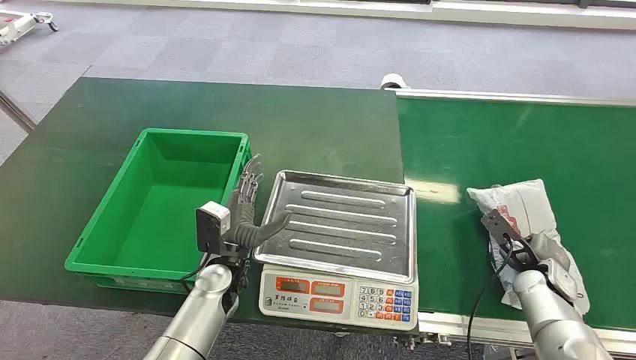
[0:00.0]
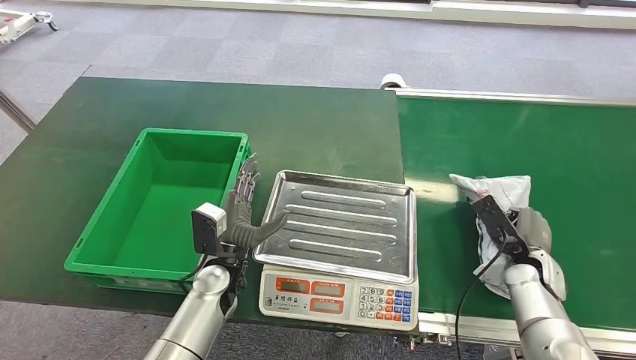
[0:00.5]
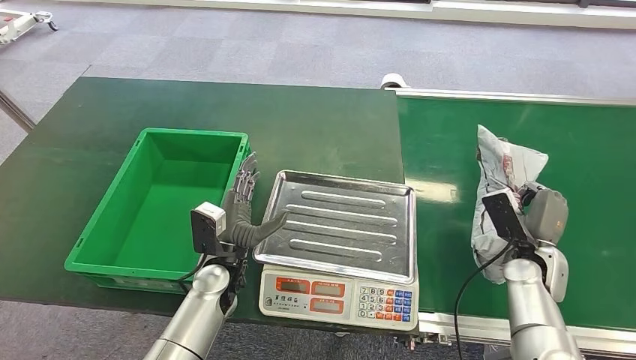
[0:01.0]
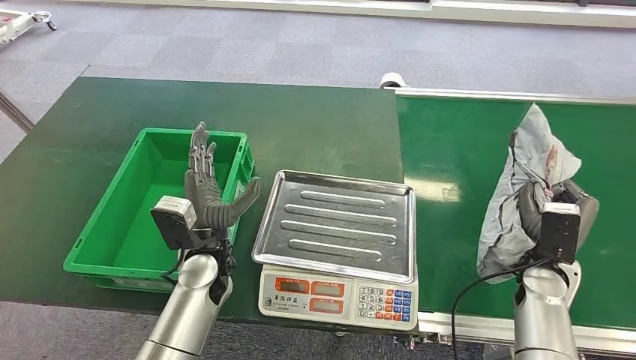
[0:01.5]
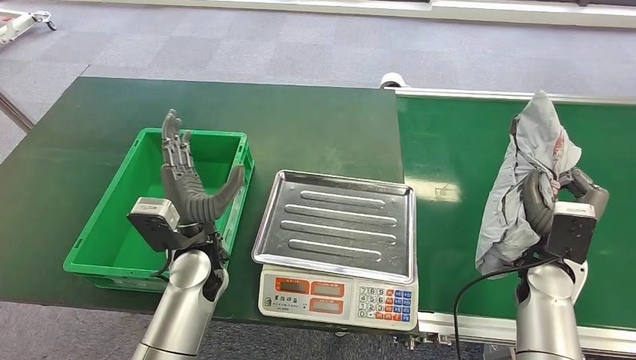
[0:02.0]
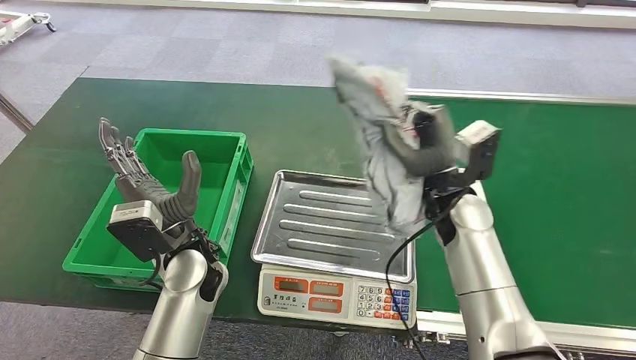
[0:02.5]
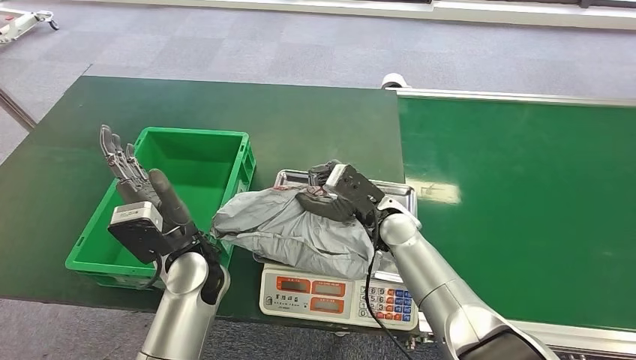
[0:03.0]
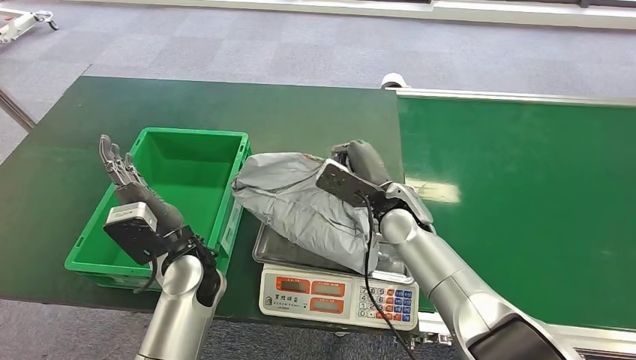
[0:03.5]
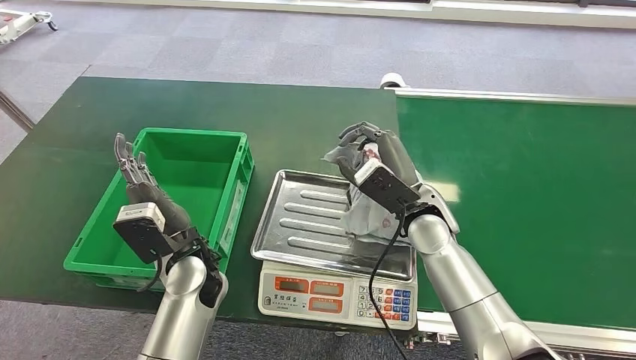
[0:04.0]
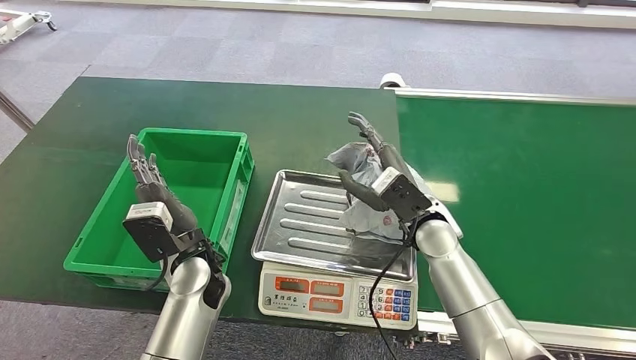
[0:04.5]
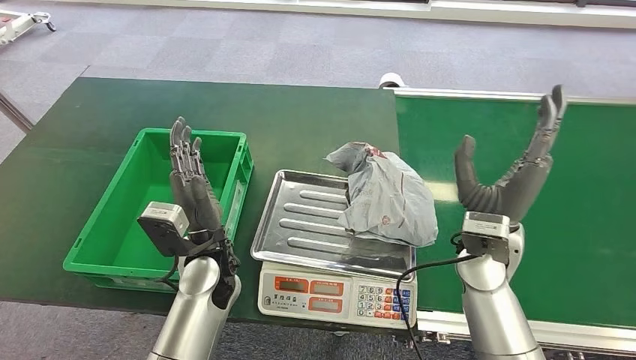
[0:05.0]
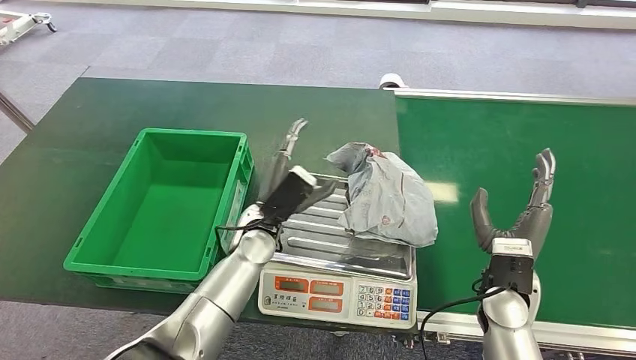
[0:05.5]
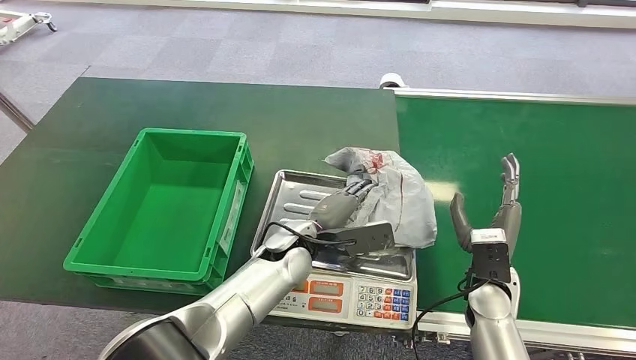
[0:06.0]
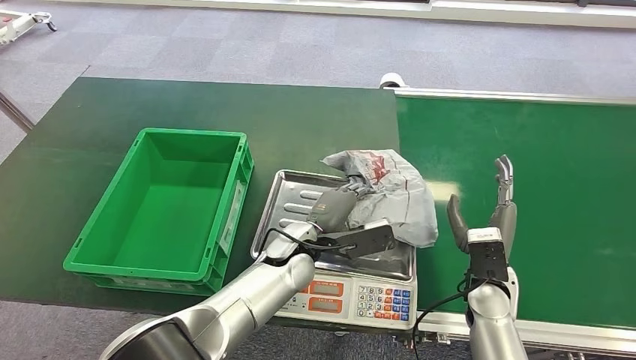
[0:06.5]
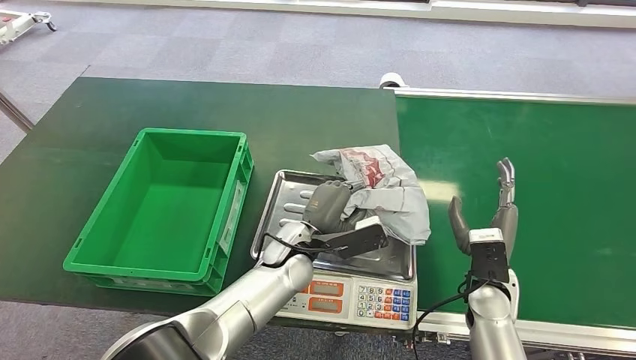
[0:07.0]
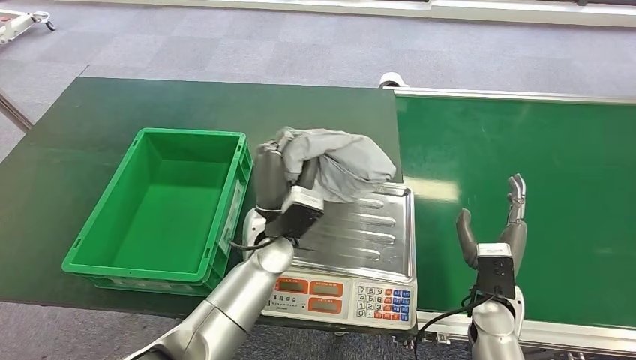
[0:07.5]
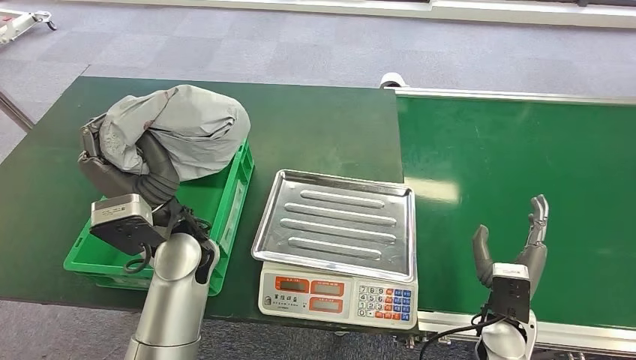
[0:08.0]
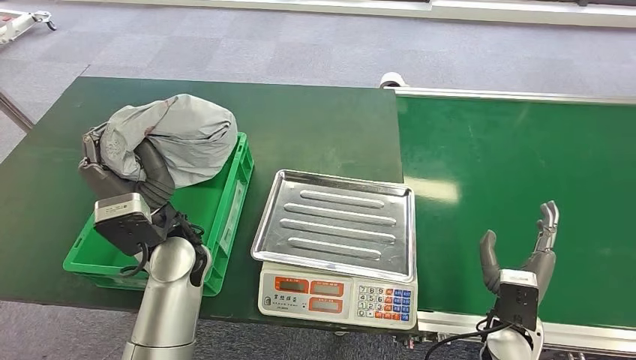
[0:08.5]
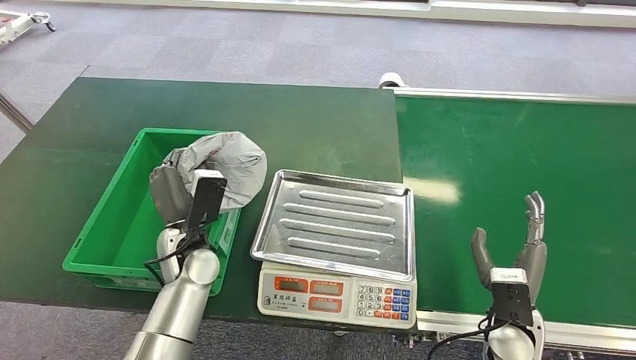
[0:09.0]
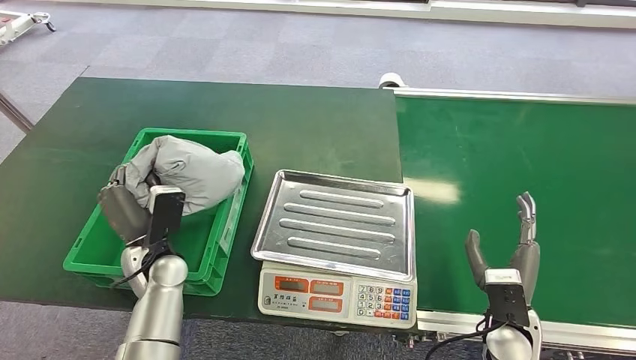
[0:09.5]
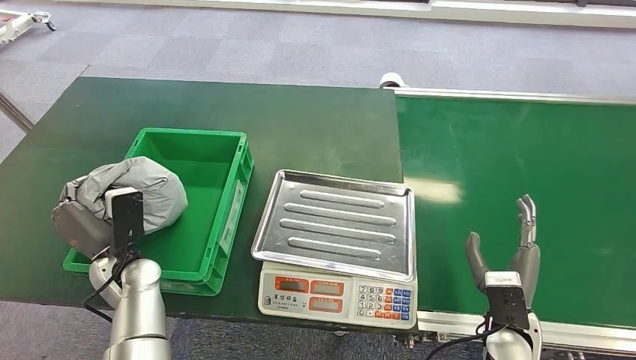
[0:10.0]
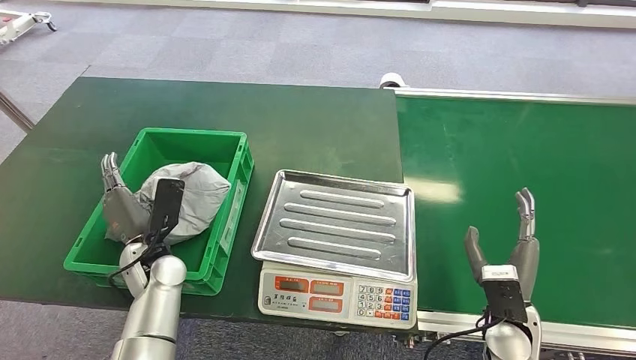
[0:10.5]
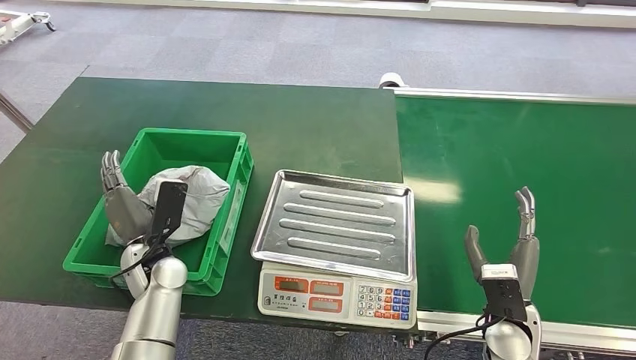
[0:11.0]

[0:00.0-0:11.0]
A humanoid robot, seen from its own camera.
Step, 0:00.0 to 0:01.0: Pick up the package from the conveyor belt.
Step, 0:02.0 to 0:04.5: Place the package onto the inbound machine.
Step, 0:05.0 to 0:08.0: Pick up the package from the inbound machine.
Step, 0:08.5 to 0:11.0: Place the package into the parcel locker.
0:07.5 to 0:09.0: The left hand goes some 15 cm to the left.
0:09.0 to 0:11.0: The left hand heads to the left, covering about 5 cm.
